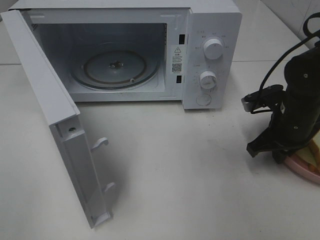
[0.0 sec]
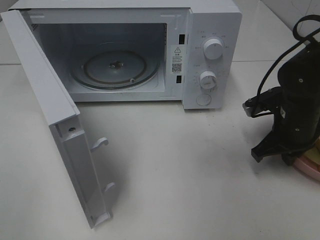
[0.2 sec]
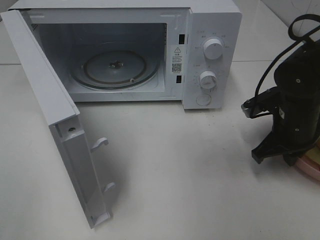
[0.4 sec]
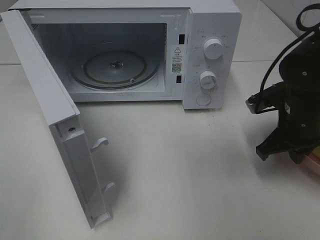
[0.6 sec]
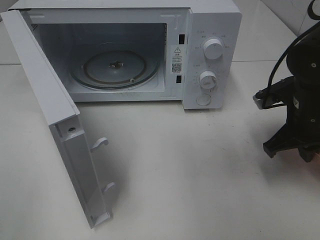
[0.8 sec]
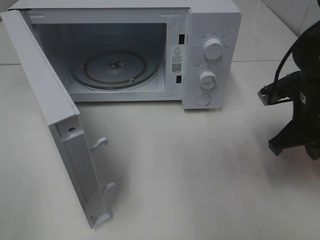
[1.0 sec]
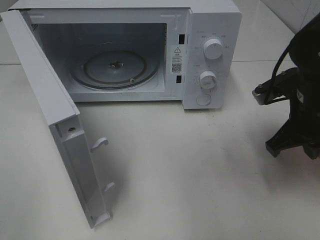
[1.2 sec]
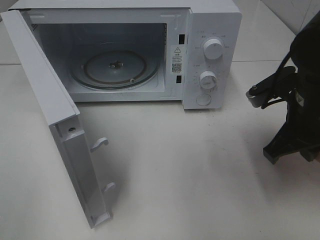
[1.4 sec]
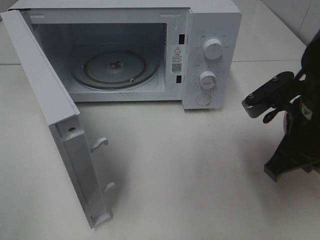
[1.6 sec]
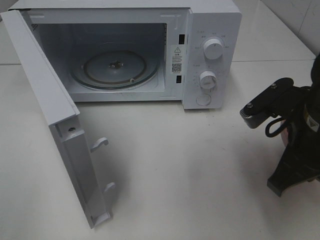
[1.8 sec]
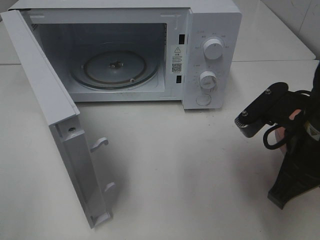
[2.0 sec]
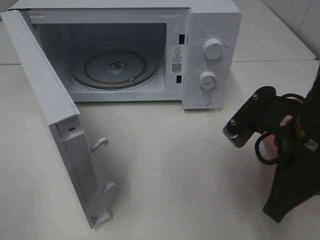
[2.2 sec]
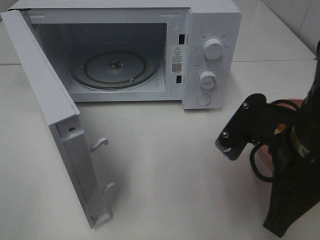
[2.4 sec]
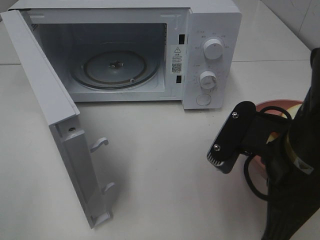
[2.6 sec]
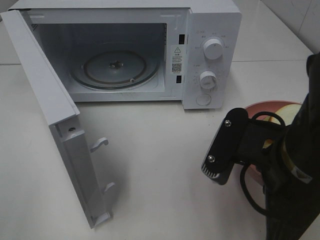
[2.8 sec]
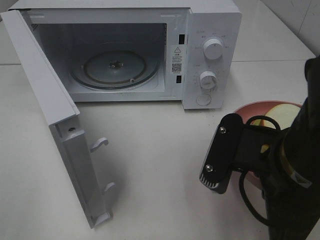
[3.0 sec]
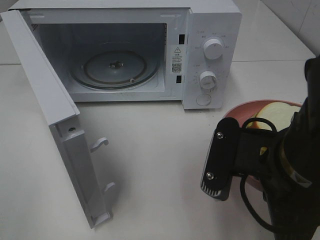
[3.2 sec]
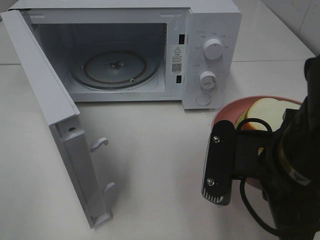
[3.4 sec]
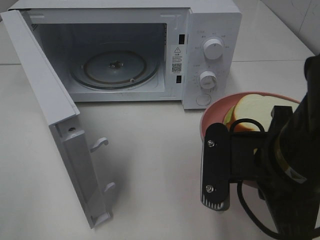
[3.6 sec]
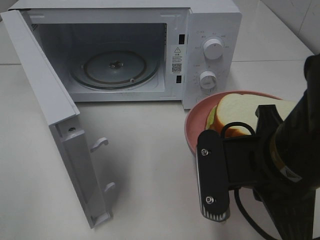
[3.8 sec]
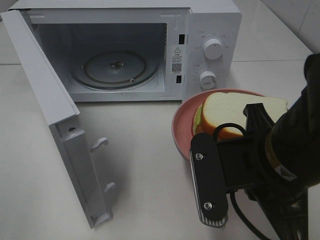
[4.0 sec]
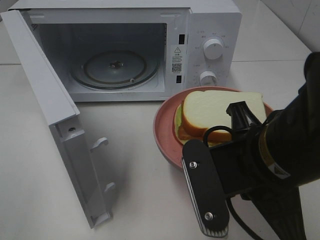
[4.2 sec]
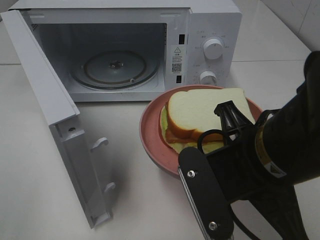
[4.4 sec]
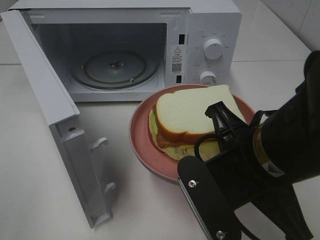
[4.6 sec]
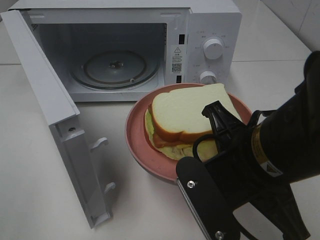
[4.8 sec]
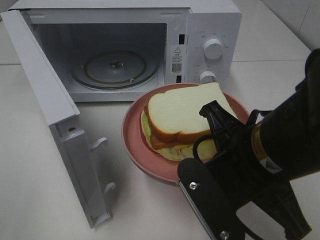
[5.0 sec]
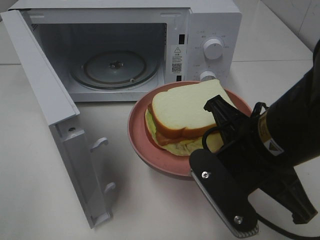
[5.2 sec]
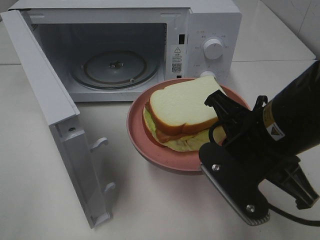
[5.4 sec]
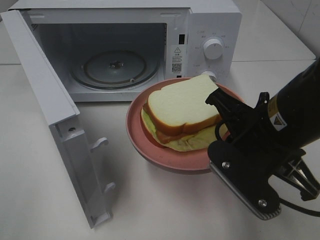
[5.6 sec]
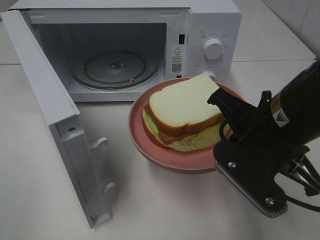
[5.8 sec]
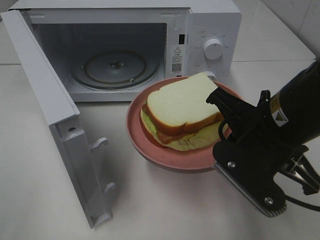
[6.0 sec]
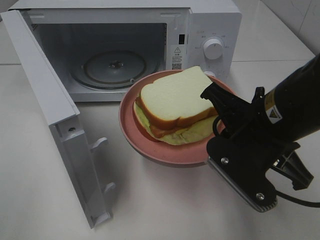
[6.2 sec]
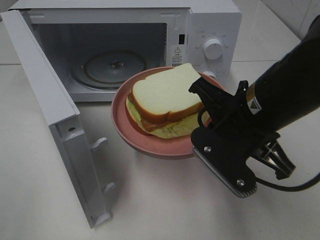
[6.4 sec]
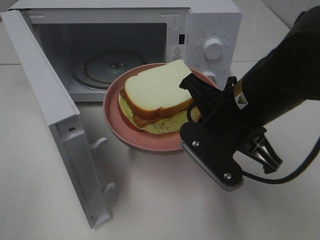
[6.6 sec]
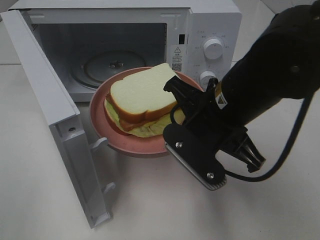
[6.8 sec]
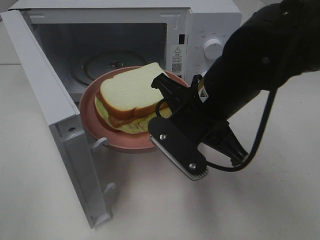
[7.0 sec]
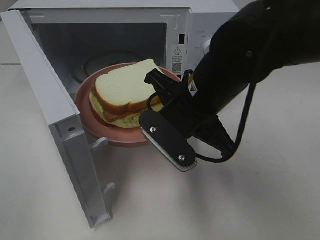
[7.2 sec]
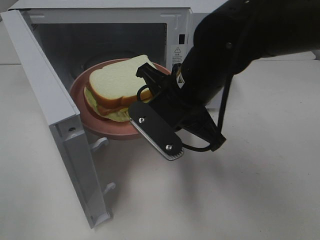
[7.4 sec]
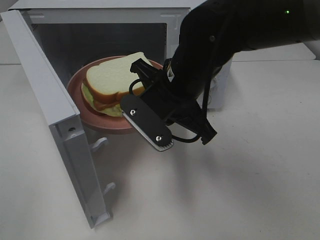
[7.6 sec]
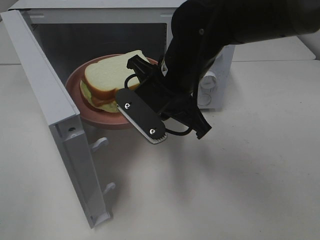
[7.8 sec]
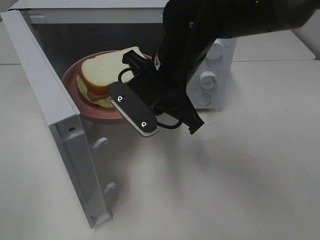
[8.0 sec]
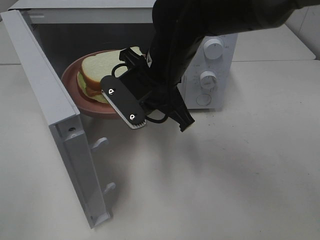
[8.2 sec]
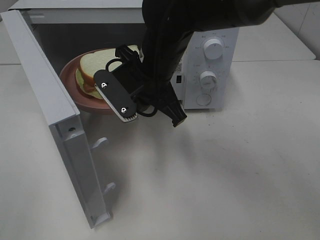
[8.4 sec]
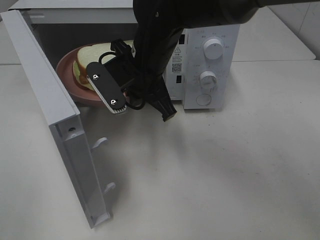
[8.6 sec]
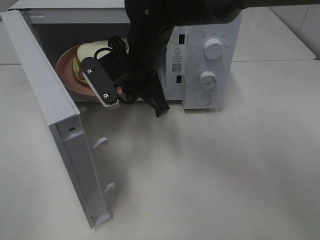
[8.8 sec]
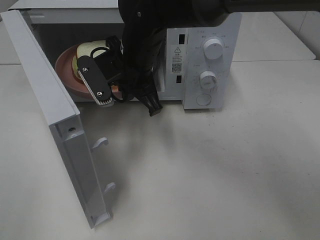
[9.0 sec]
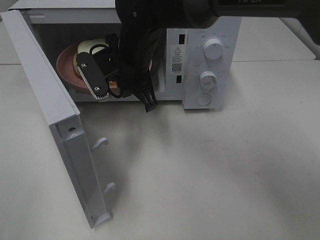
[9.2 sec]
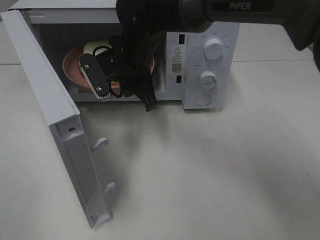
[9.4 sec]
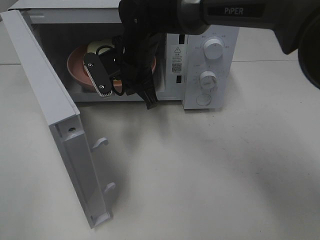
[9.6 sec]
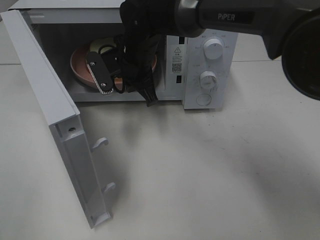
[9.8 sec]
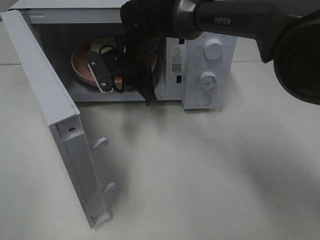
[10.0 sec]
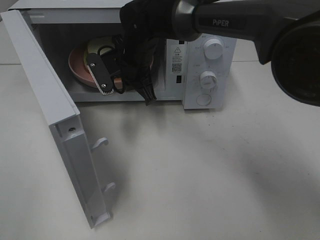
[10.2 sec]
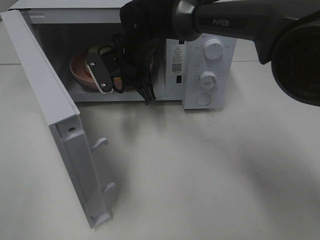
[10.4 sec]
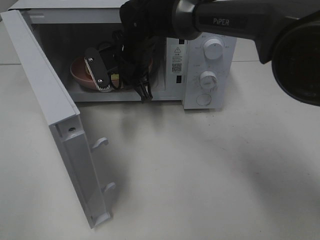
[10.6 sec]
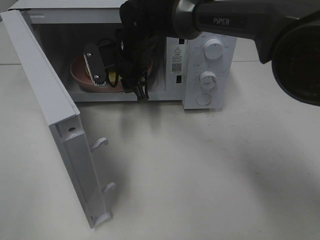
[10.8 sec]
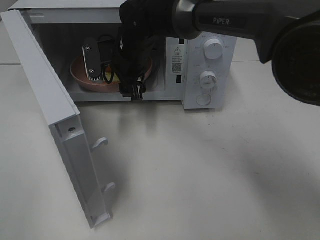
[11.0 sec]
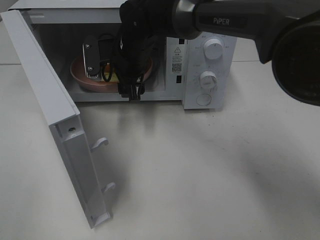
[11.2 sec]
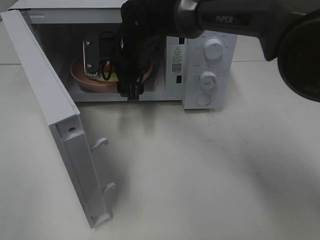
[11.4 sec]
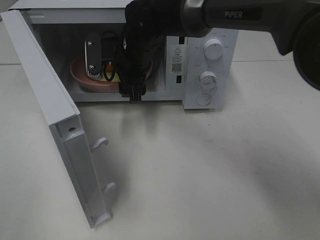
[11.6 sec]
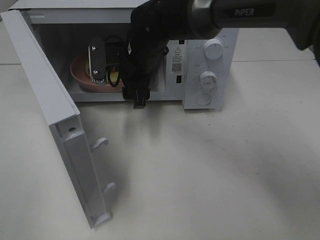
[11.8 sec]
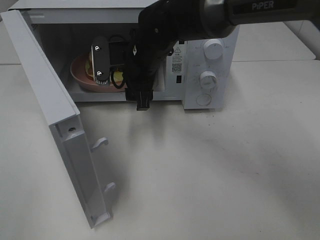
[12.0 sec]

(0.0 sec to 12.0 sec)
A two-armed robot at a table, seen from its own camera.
Task of the whole recording: Heat Sandwich.
Step, 0.2 sec - 11.6 sec: Right hand: place the plate in the microwave.
0.0 sec - 1.6 sec: The right gripper moves backward and upward, about 15 cm.
1.6 sec - 3.0 sec: The right gripper goes approximately 10 cm backward and to the left.
4.4 sec - 6.0 sec: The right gripper changes place by about 5 cm.
6.0 sec - 7.6 sec: The right gripper moves to the left and forward, some 15 cm.
7.6 sec - 9.0 sec: The right gripper travels forward and to the left by some 10 cm.
9.0 sec - 10.4 sec: The right gripper moves forward, roughly 5 cm.
10.4 sec - 12.0 sec: The right gripper opens up.

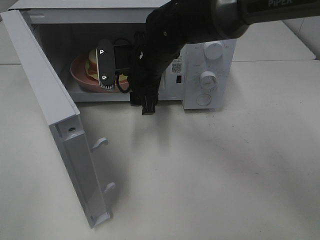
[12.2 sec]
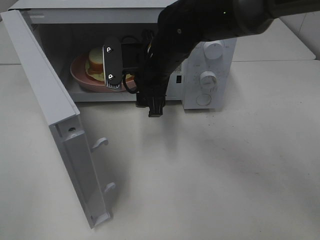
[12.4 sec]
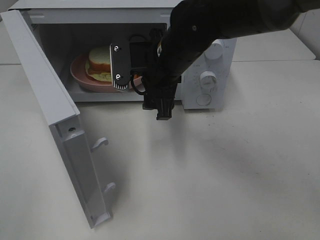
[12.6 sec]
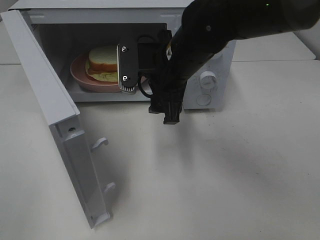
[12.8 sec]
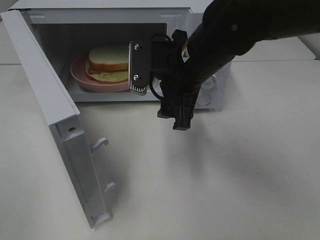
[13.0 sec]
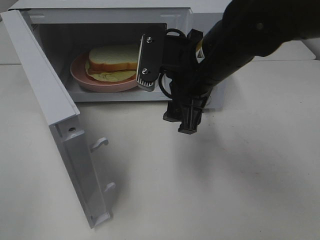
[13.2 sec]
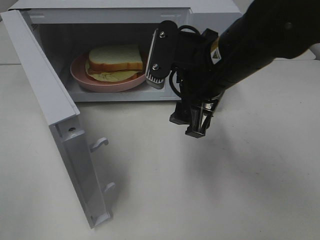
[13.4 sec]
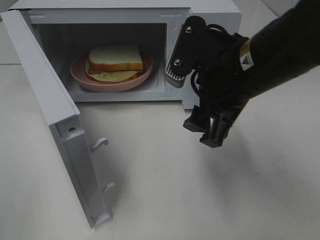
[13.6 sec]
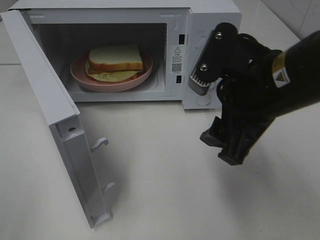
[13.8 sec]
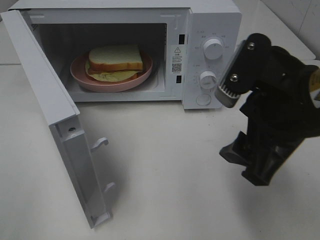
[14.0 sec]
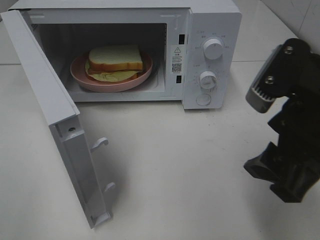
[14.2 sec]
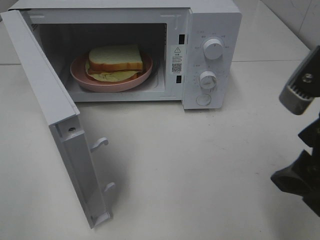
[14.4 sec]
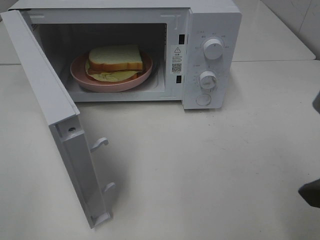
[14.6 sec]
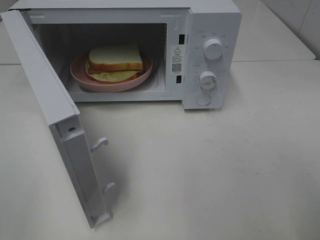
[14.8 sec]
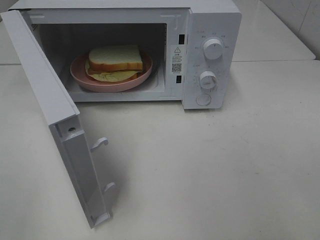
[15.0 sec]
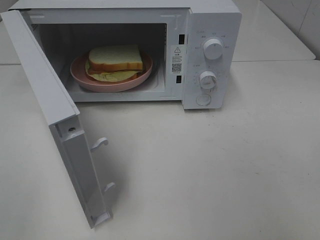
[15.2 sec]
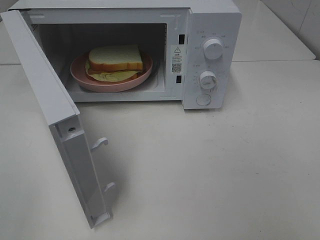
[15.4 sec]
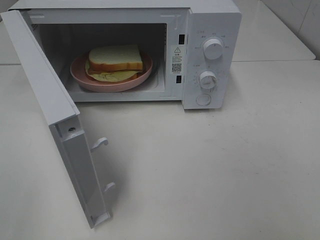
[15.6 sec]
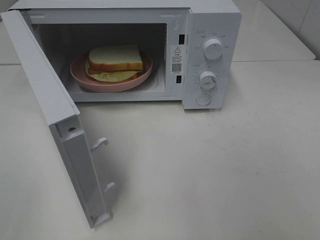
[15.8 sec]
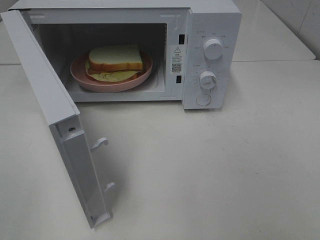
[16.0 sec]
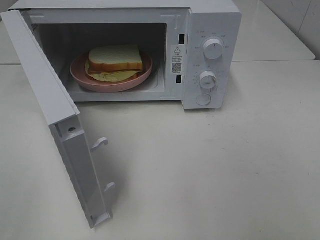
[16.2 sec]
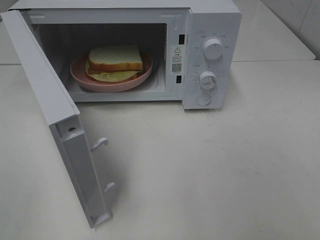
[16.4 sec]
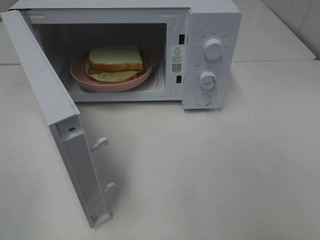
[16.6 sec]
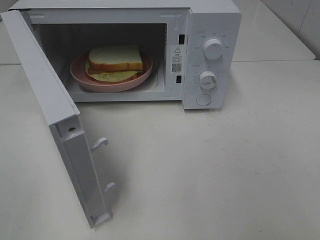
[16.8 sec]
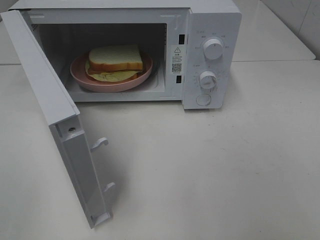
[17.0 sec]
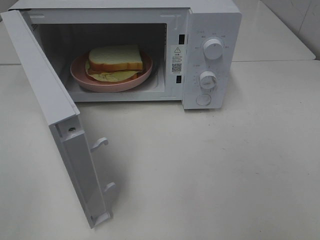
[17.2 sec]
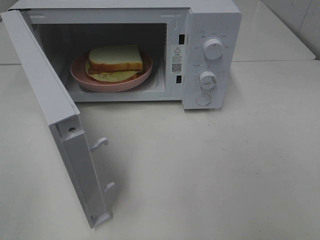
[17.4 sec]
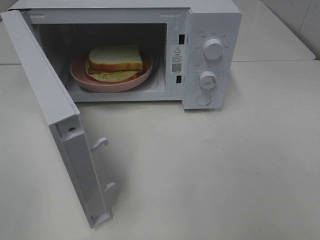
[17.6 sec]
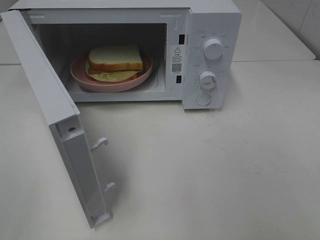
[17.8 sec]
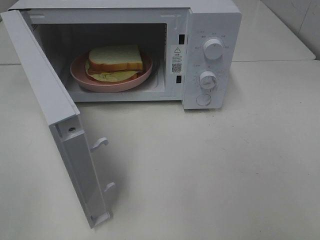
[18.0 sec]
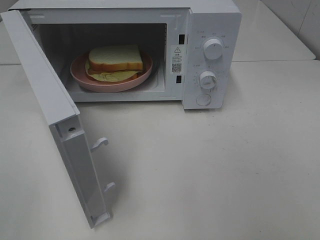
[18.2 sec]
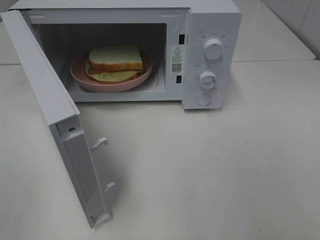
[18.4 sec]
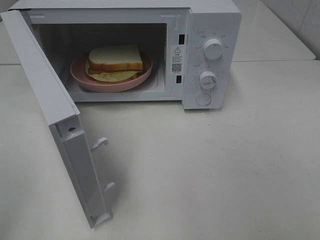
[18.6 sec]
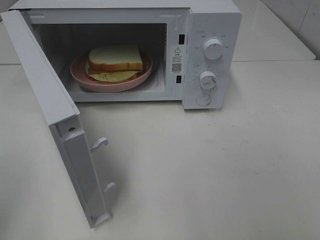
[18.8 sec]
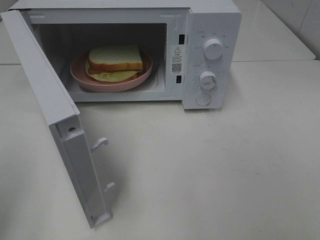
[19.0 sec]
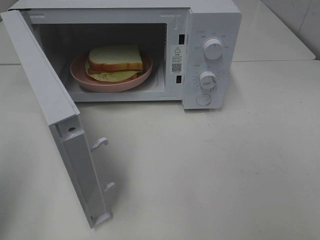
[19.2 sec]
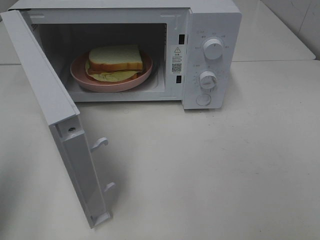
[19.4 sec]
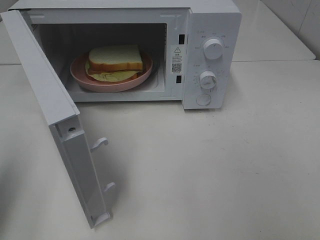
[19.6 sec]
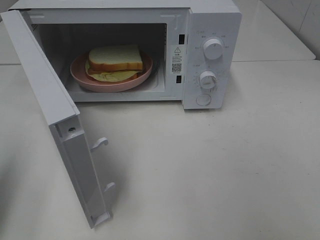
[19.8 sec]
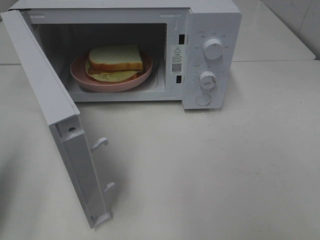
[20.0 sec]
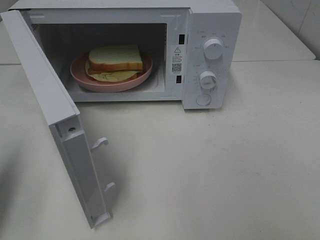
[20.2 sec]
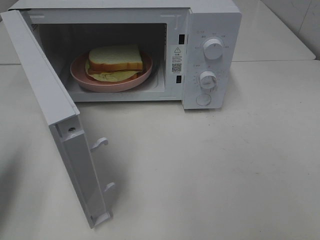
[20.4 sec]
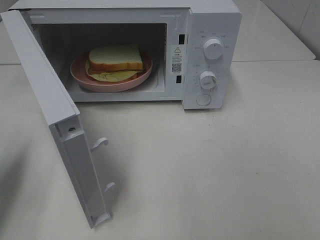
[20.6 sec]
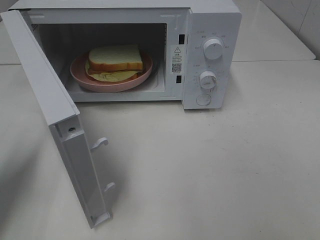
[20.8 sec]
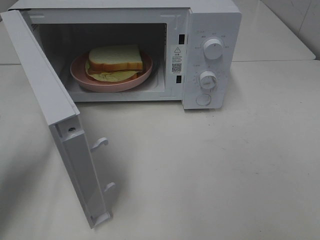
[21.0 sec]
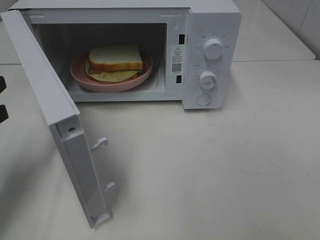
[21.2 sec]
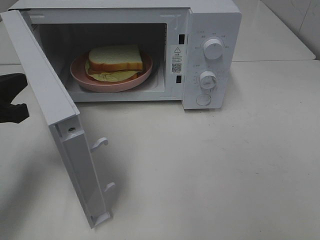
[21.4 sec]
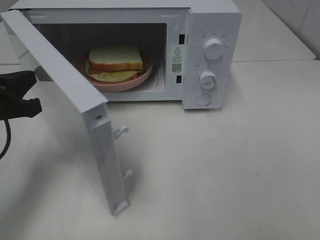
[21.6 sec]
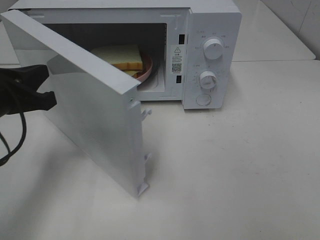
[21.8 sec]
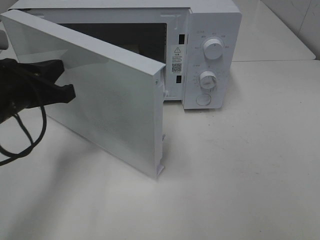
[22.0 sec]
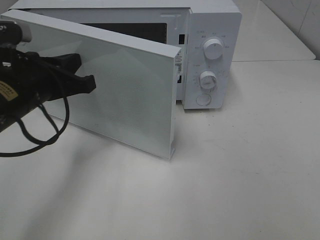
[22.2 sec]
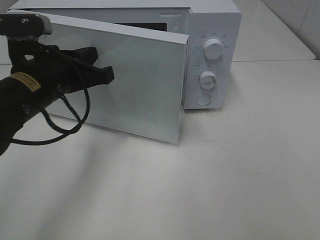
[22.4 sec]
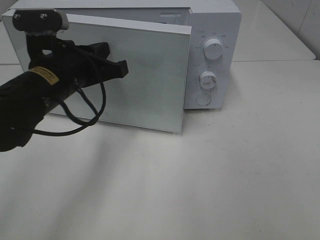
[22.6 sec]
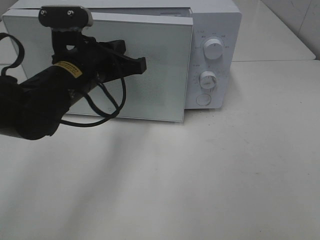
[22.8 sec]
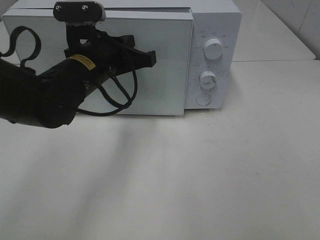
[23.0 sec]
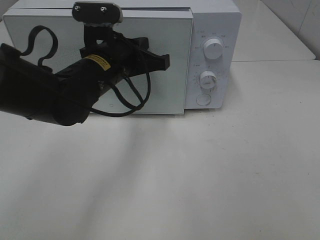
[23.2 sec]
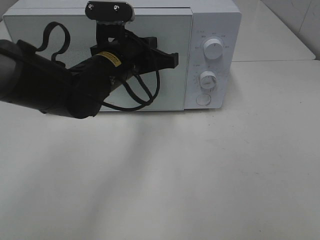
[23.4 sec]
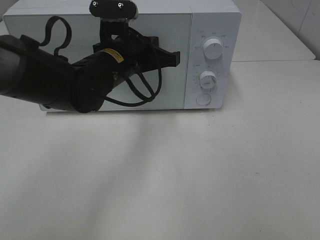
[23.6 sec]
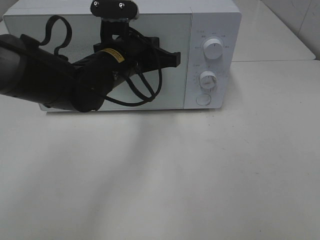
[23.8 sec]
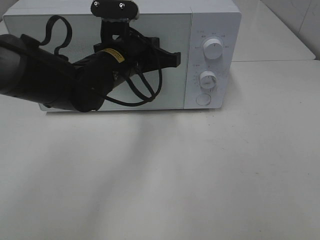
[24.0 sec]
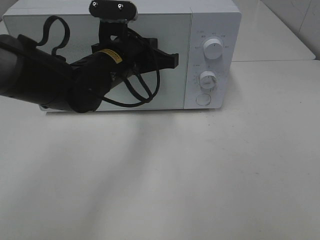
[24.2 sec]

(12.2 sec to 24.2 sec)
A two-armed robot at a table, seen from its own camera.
Task of the whole recording: Heat Sandwich.
12.2 sec - 13.8 sec: The right gripper is displaced backward and to the right by about 20 cm.
13.8 sec - 15.2 sec: The right gripper travels backward and to the right by some 20 cm.
16.6 sec - 18.2 sec: The two grippers keep their place.
18.2 sec - 19.8 sec: The left gripper goes roughly 15 cm forward, and closes.
19.8 sec - 21.2 sec: The left gripper shifts roughly 10 cm forward and downward.
21.2 sec - 22.6 sec: The left gripper is displaced to the right and forward by some 15 cm.
22.6 sec - 24.2 sec: The left gripper travels to the right and forward by approximately 10 cm.
